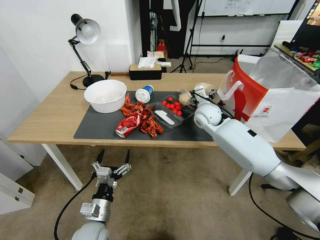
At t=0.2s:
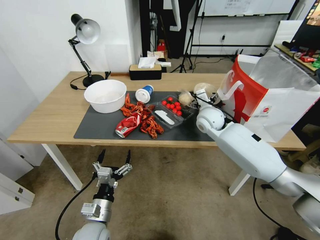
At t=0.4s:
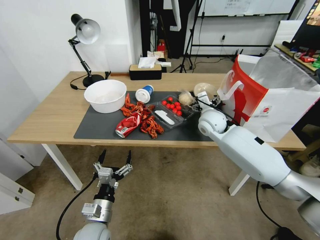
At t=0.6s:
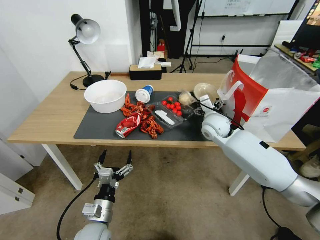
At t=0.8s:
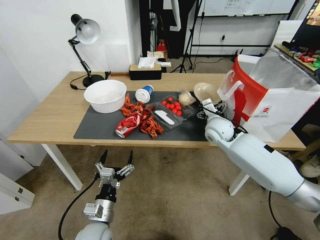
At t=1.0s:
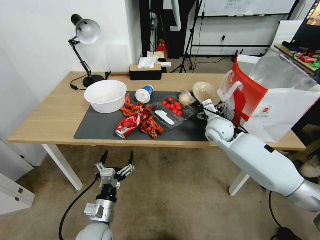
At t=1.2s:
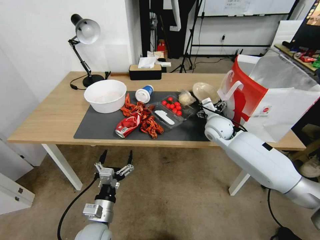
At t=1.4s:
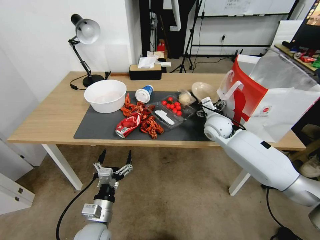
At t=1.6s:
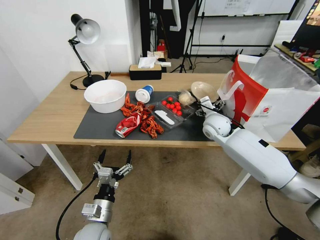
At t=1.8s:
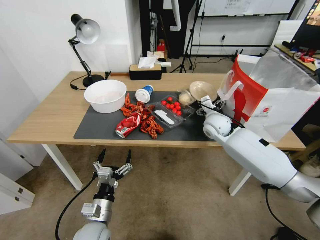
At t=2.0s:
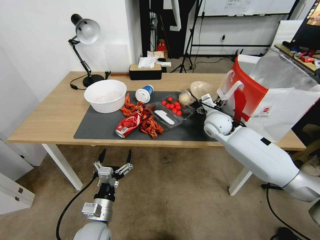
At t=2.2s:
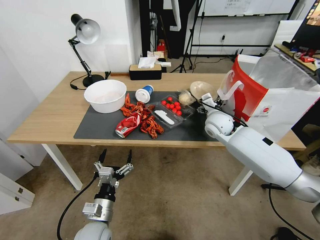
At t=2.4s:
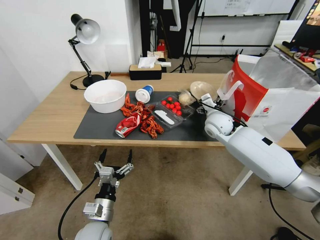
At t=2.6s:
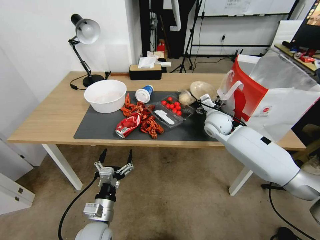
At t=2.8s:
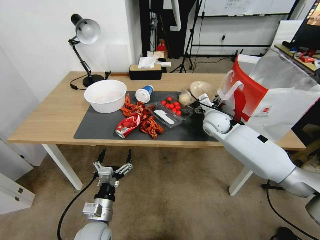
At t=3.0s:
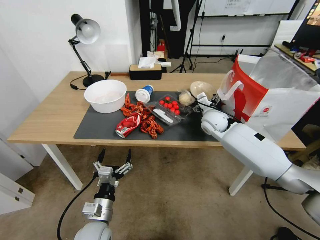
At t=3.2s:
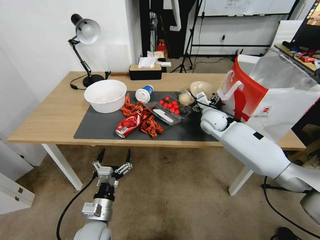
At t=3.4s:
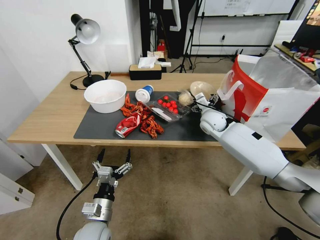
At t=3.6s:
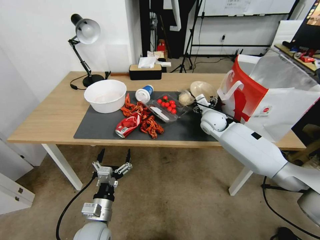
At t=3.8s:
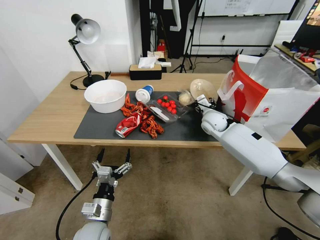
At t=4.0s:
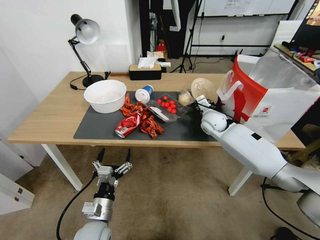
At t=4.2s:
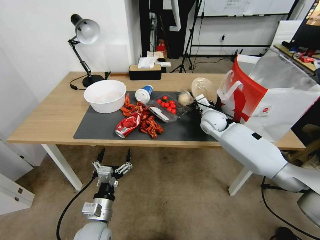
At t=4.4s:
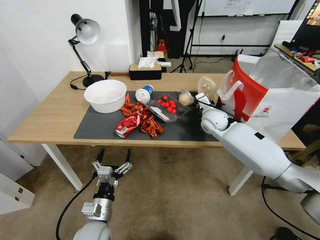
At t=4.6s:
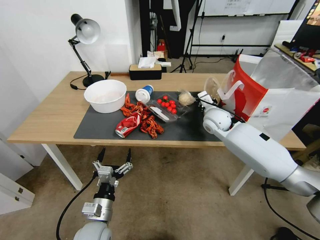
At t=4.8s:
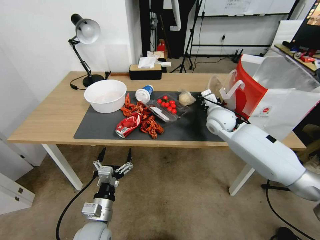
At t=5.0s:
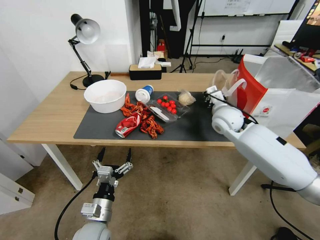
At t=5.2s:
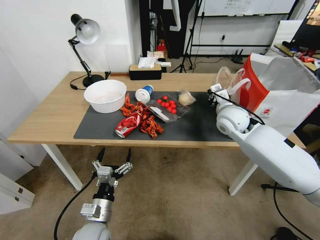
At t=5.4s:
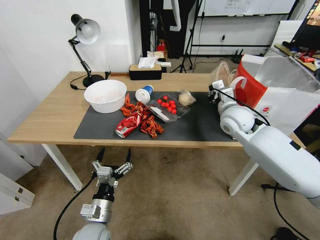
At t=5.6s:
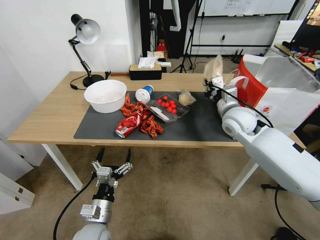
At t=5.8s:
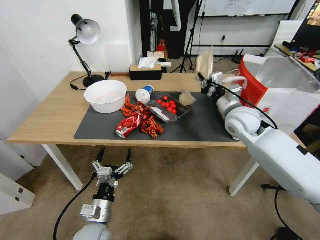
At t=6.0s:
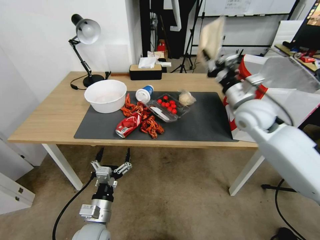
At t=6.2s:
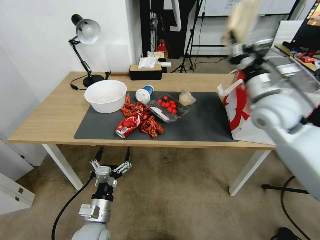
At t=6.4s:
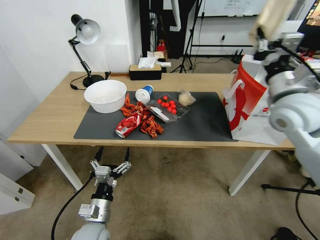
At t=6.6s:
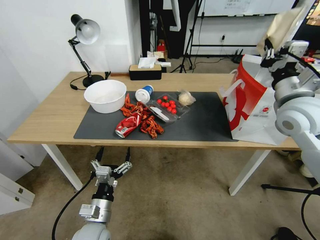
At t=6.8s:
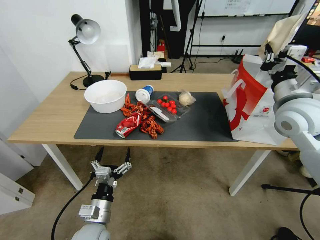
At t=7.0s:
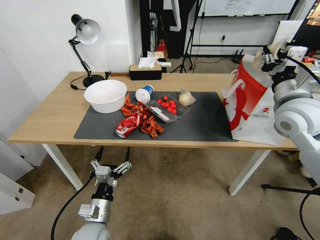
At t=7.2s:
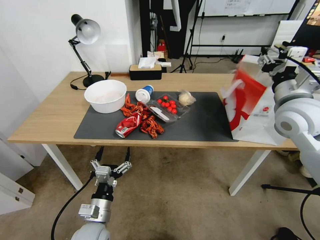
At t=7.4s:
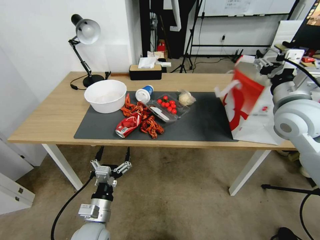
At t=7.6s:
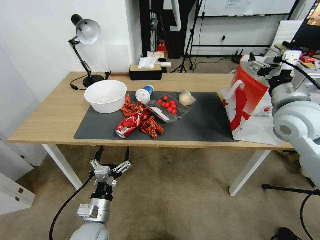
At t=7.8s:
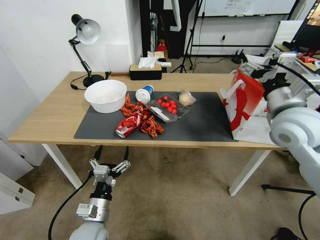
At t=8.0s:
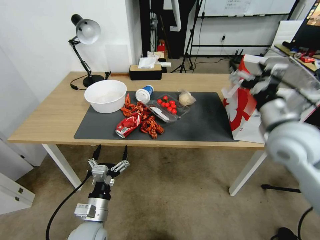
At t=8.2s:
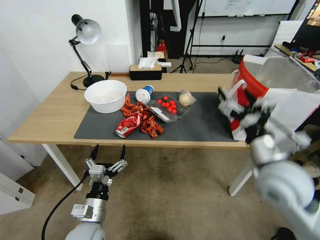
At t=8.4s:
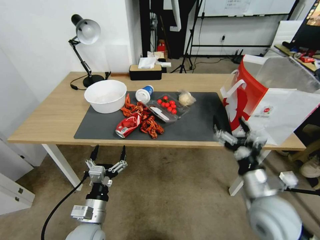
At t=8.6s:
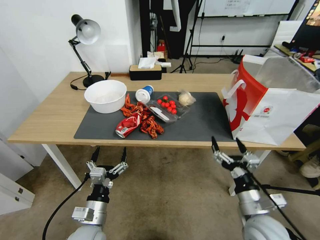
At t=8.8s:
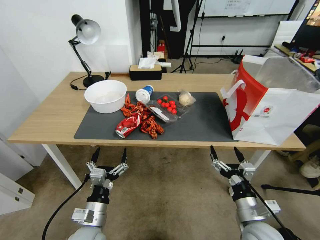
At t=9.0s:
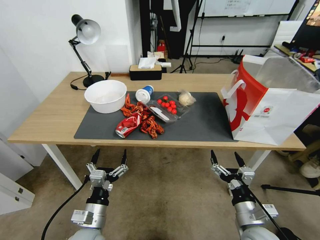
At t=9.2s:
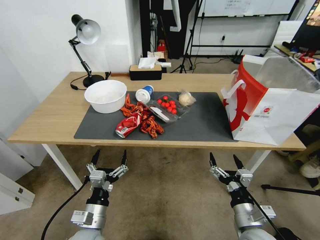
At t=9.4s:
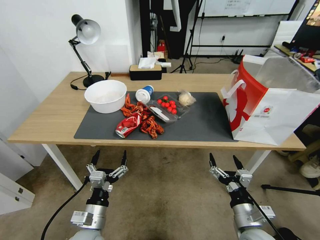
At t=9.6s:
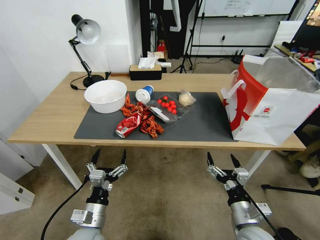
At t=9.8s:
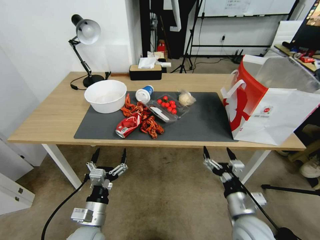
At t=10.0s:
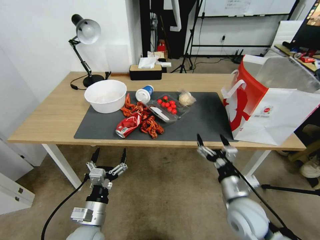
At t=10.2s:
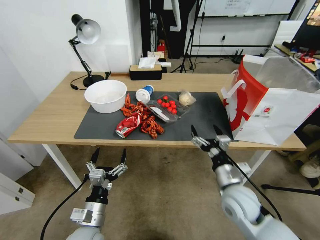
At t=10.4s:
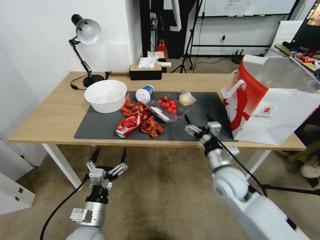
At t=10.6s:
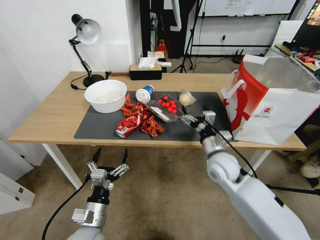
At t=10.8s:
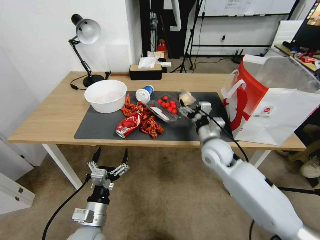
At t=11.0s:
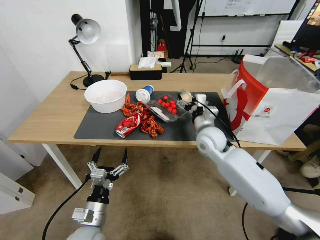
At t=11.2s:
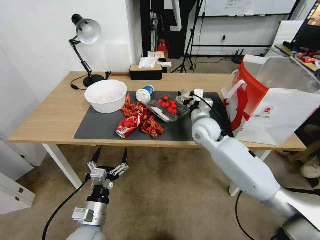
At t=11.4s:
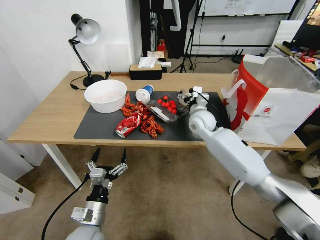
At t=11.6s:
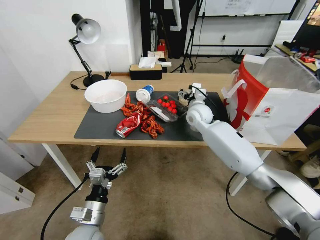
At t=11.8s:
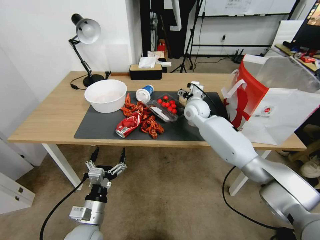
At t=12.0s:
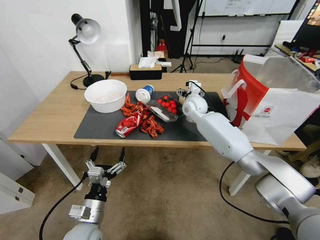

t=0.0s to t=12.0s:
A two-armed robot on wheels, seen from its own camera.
t=0.0s to t=1.6s: The right gripper moves about 5 cm.
t=1.6s to t=3.0s: The grippers stay close to where they were, moving slightly.
t=3.0s to t=4.4s: The right gripper closes its fingers.
t=4.4s to t=6.0s: The right gripper heads upward, backward and to the right, covering approximately 15 cm.
t=6.0s to t=7.6s: The right gripper is displaced backward, to the right and upward by roughly 10 cm, and opens up.
t=7.6s to t=9.0s: The right gripper moves downward and backward, roughly 35 cm.
t=9.0s to t=10.4s: The right gripper travels forward by about 15 cm.
t=10.4s to t=12.0s: The right gripper travels forward by about 30 cm.

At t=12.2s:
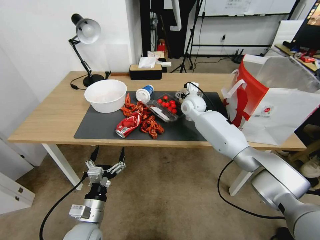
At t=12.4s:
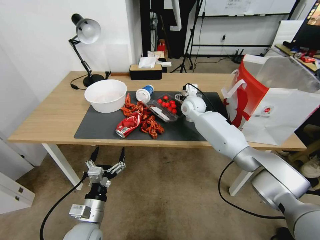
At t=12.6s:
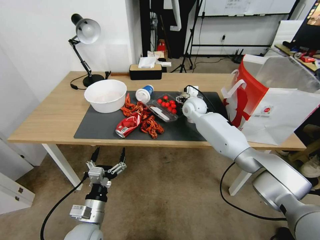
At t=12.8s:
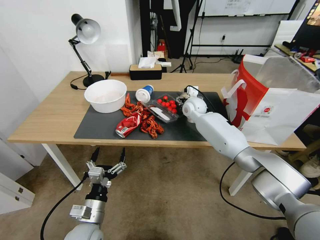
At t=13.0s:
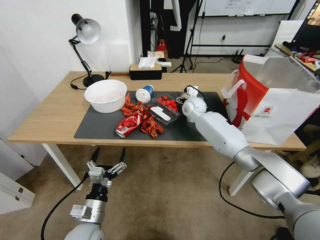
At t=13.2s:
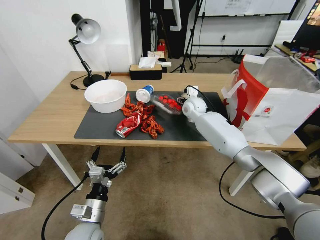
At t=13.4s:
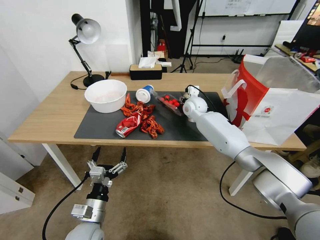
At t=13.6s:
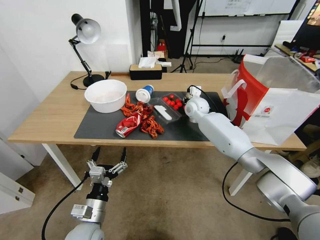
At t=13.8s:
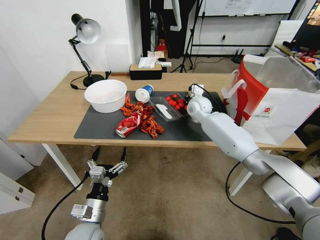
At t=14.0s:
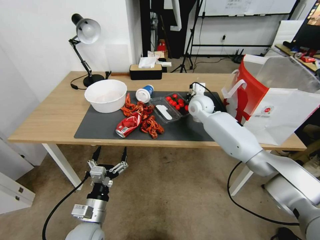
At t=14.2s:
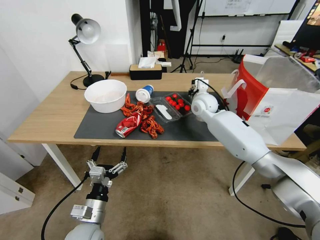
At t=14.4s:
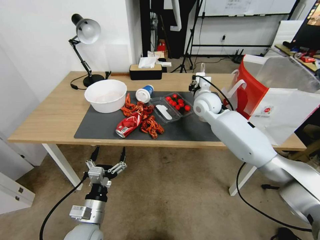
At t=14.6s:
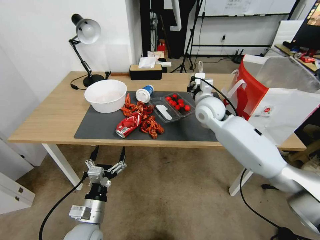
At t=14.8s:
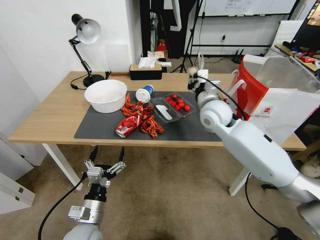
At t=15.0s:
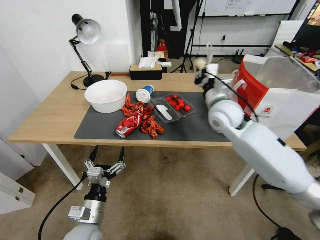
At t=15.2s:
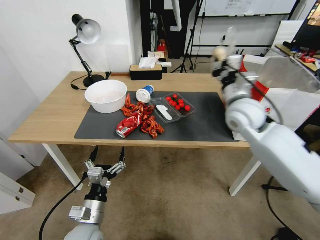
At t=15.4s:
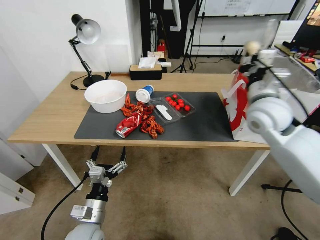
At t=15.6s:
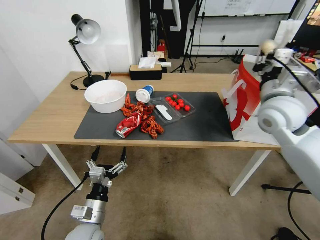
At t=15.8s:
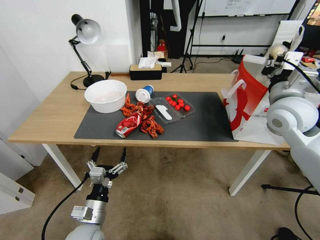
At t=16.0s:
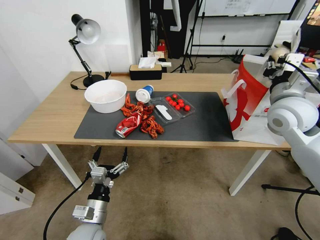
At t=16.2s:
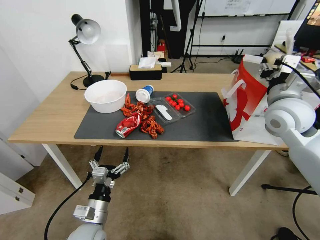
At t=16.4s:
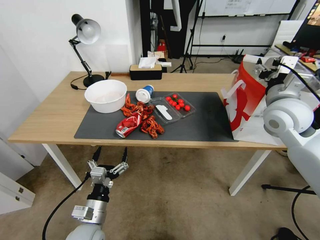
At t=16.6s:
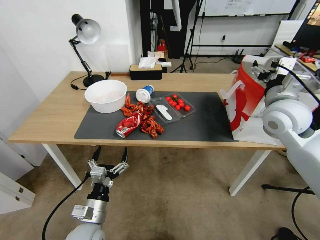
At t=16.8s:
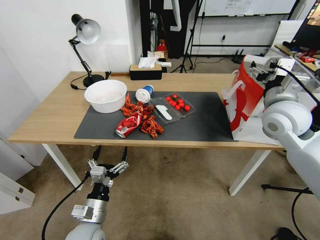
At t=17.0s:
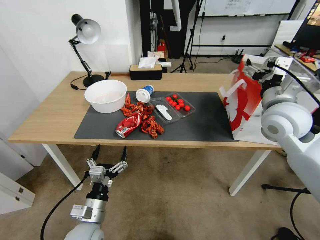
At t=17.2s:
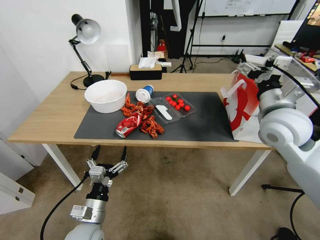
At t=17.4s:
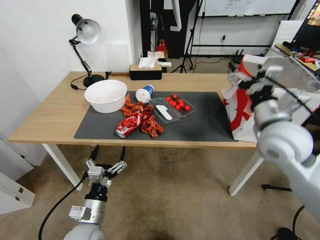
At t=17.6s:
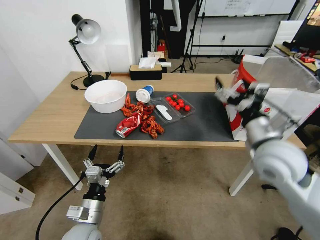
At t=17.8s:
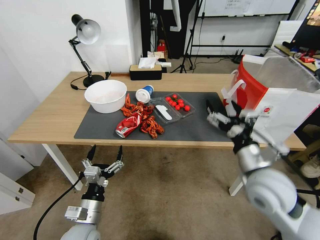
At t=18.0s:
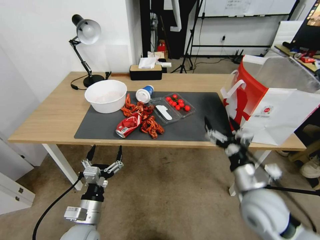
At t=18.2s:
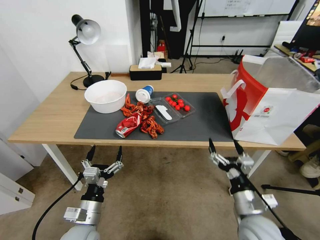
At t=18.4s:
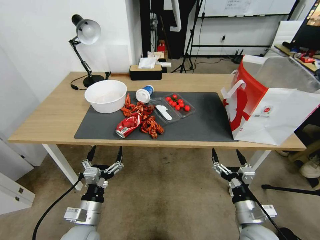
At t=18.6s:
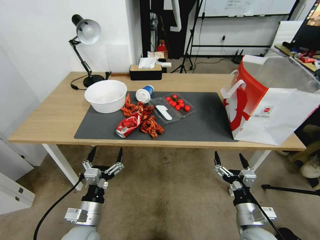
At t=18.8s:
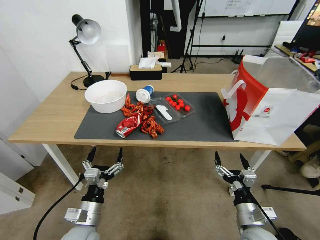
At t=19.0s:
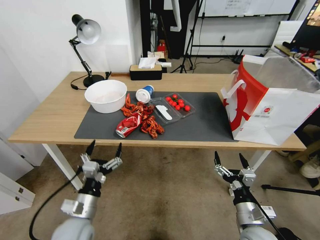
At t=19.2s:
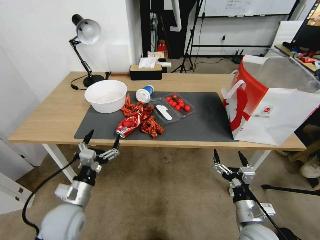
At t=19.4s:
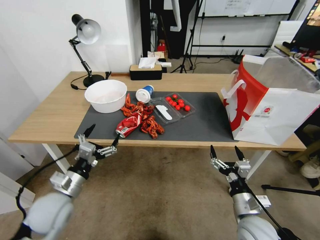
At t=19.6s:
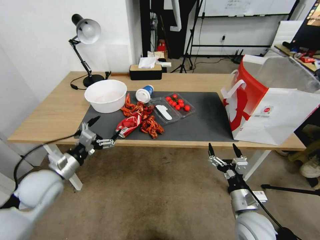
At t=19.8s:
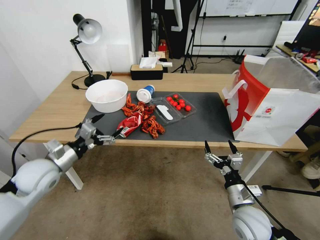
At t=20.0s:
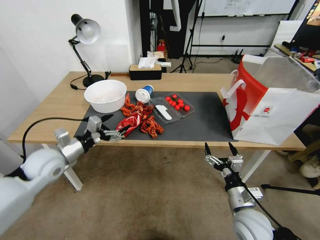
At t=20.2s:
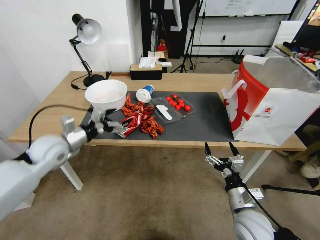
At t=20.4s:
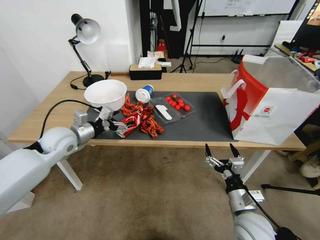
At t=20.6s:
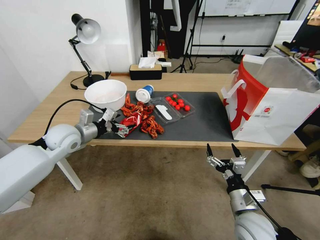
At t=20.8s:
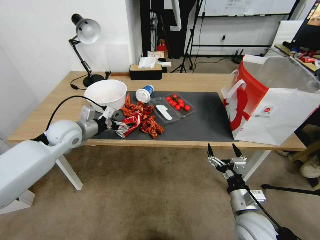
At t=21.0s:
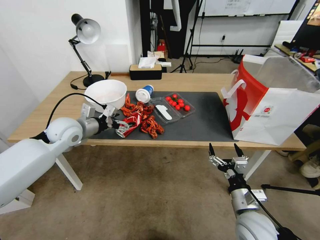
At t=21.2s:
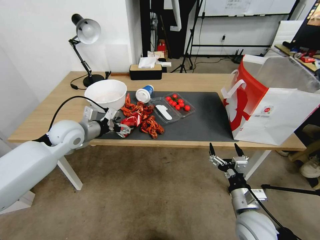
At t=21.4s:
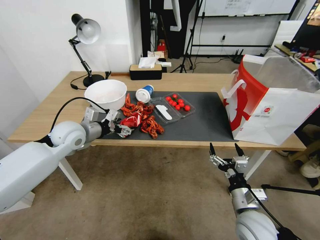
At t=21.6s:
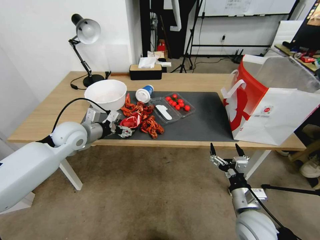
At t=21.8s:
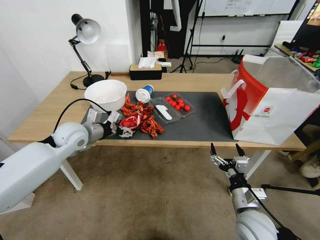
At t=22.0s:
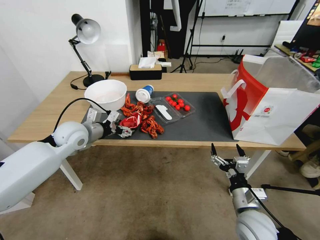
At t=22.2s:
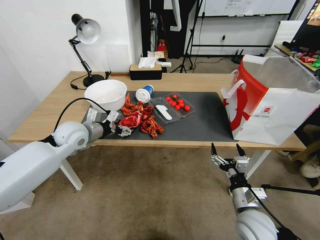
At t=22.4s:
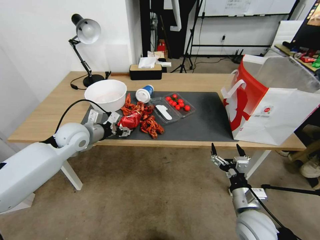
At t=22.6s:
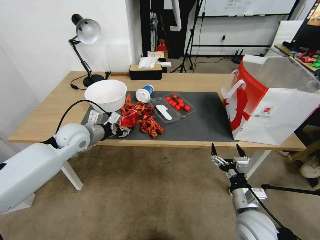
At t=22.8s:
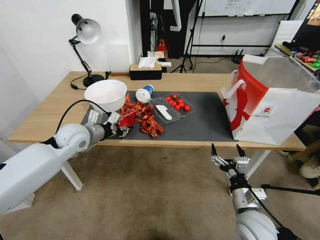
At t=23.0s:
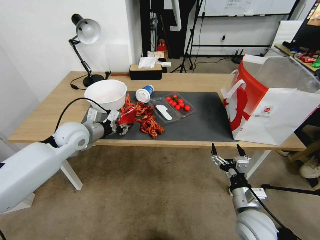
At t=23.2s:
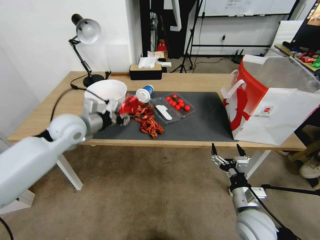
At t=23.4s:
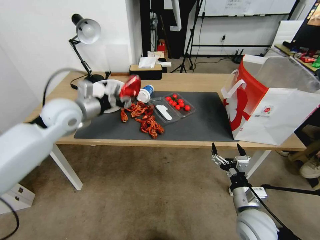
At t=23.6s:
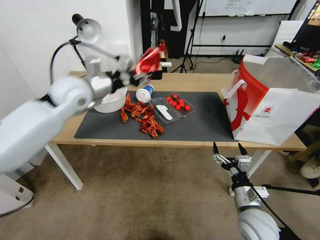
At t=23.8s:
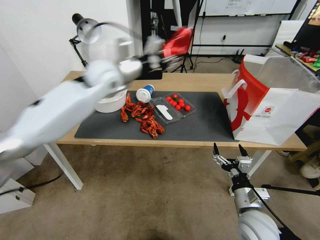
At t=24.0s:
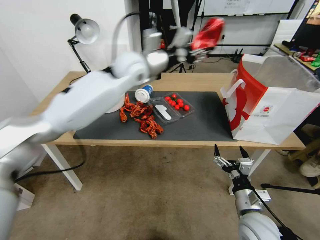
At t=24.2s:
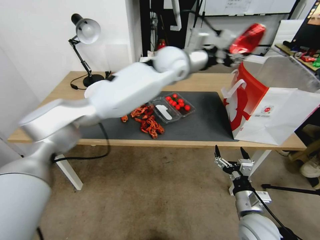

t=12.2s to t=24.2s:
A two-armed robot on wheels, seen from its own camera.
t=12.2s to t=13.8s: The right gripper closes.
t=13.8s to t=15.2s: The right gripper shifts about 20 cm backward, upward and to the right.
t=15.2s to t=16.6s: The right gripper moves to the right, some 5 cm, and opens its fingers.
t=16.6s to t=18.2s: The right gripper moves downward and backward, about 30 cm.
t=18.2s to t=19.8s: The left gripper heads forward, to the left and upward, covering some 20 cm.
t=19.8s to t=21.2s: The left gripper goes some 15 cm forward and to the right.
t=21.2s to t=22.6s: The left gripper closes up.
t=22.6s to t=24.2s: The left gripper travels to the right, upward and forward by approximately 40 cm.
